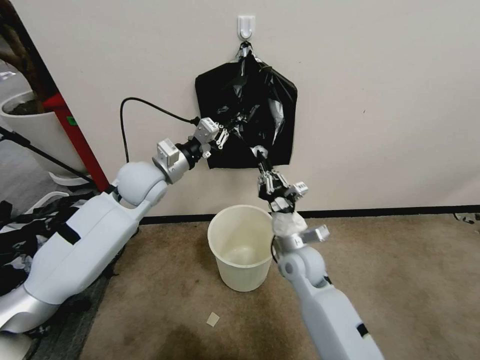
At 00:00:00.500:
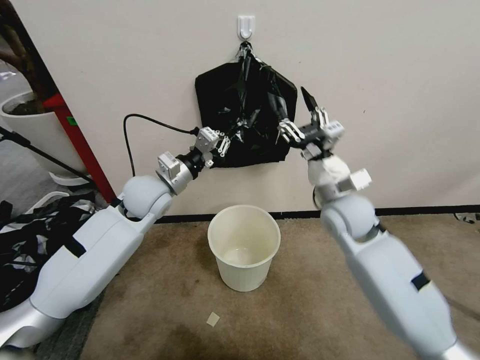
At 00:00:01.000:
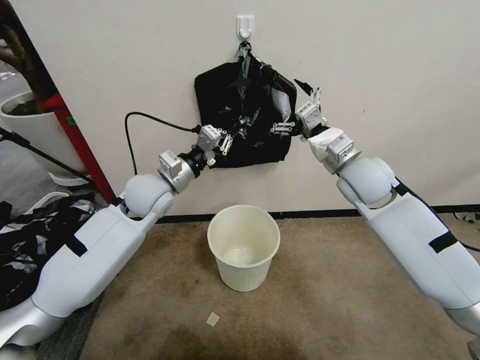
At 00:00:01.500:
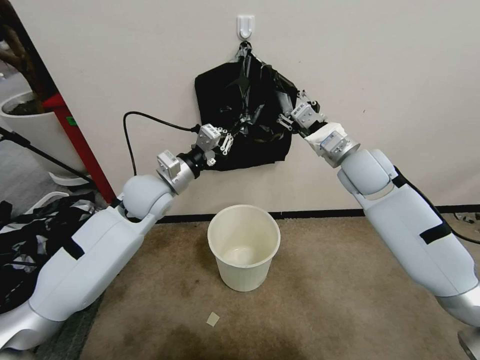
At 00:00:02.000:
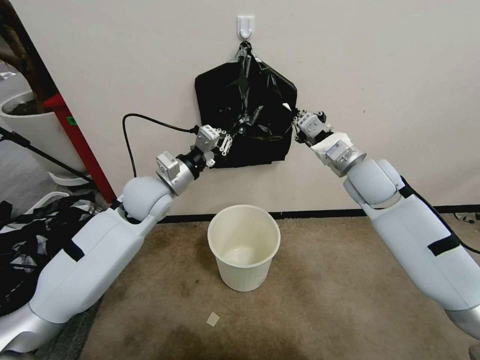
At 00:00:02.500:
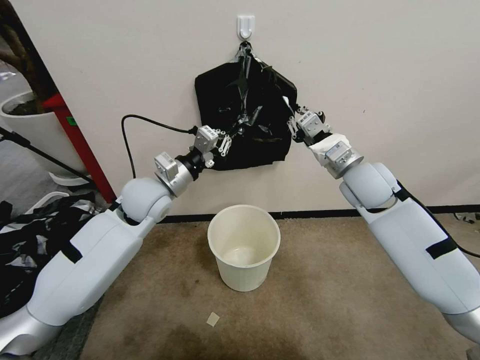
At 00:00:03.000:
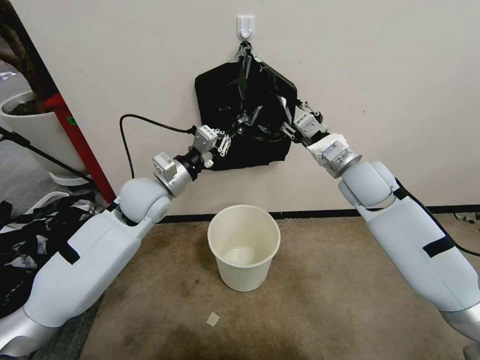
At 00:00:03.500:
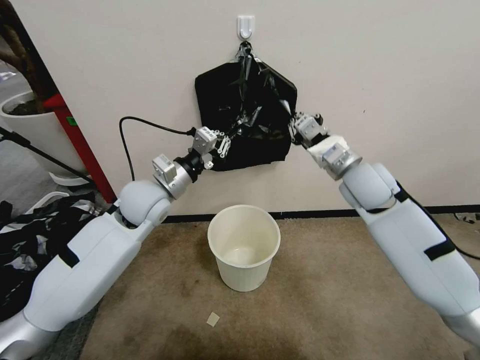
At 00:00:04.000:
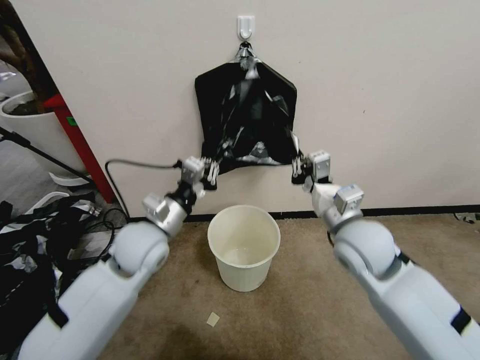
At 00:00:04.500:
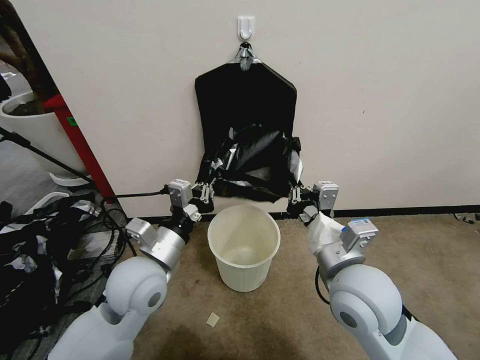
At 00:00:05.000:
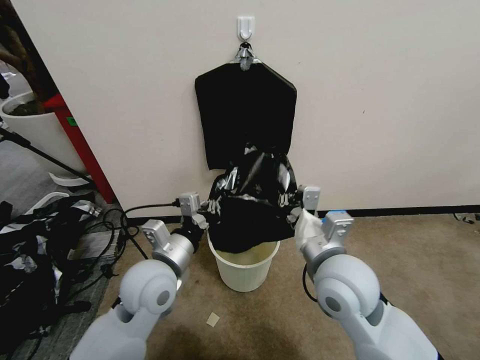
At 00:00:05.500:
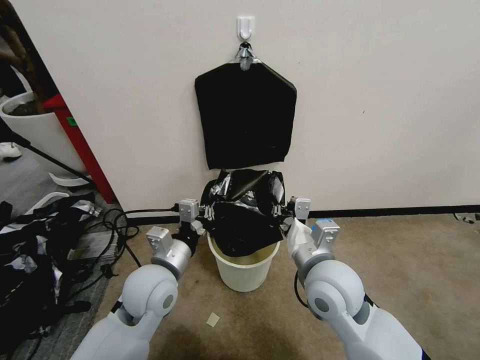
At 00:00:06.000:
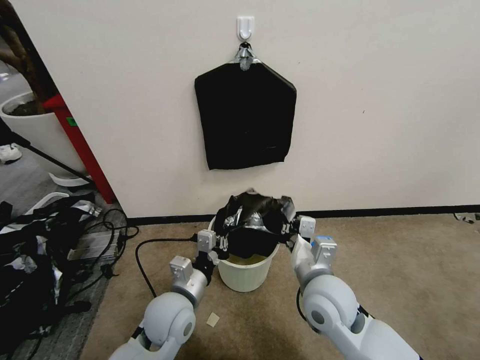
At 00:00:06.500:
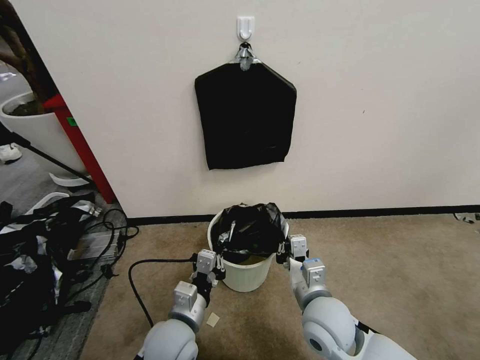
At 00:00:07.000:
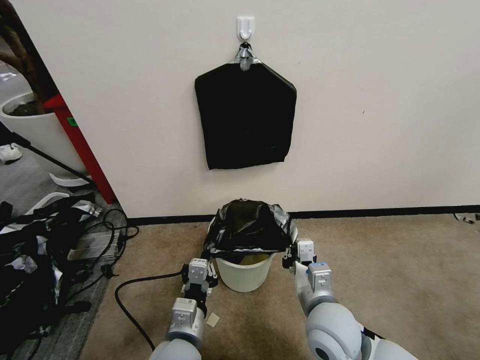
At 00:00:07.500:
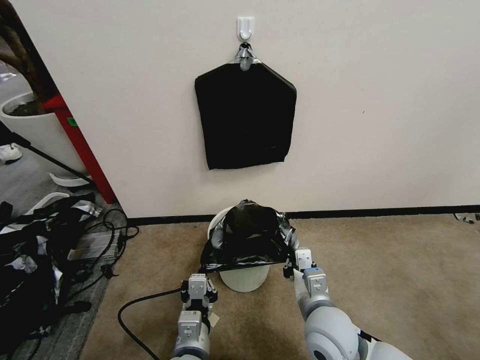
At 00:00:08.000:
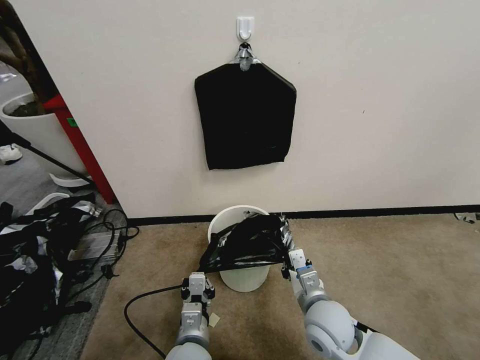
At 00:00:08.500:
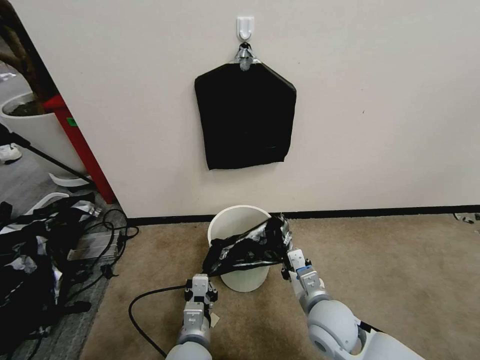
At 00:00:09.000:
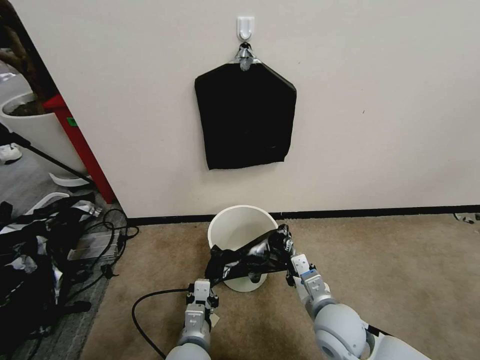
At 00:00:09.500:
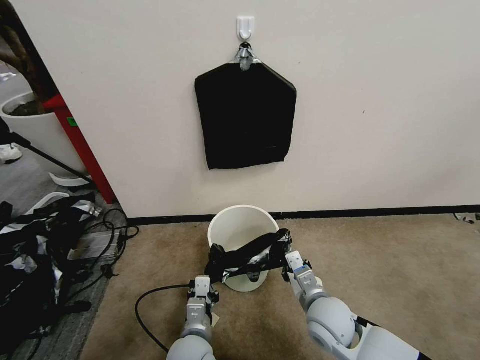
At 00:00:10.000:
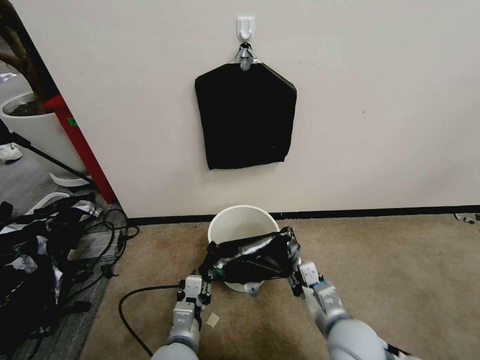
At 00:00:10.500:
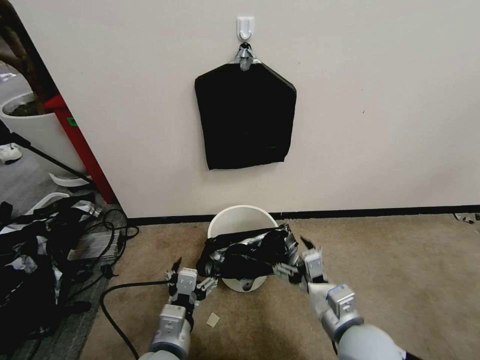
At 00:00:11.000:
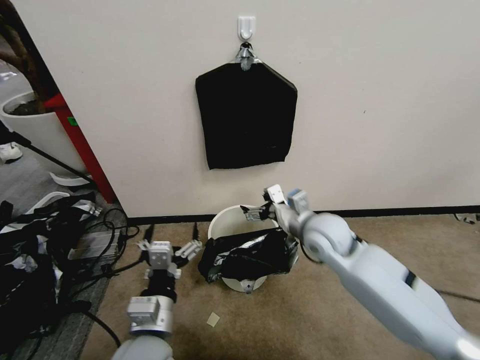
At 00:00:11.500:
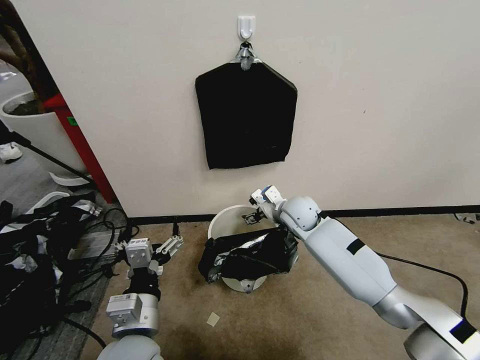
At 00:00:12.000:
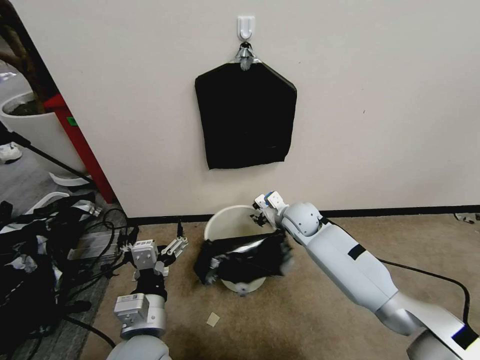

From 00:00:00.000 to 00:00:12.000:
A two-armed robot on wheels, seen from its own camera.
Task of the whole recording: Place a trash bag onto the trash bin.
From 00:00:00.000 to 00:00:02.000: The right gripper shifts about 25 cm upward, to the right and forward, and opens and closes again.
From 00:00:02.000 to 00:00:04.000: The left gripper heads backward and downward, covering approximately 10 cm. The right gripper shifts some 15 cm backward, and opens and closes again.
From 00:00:04.000 to 00:00:06.000: The right gripper goes some 10 cm downward, to the left and backward, while the left gripper shifts about 15 cm downward, backward and to the right.
From 00:00:06.000 to 00:00:08.000: The right gripper shifts roughly 10 cm downward. The left gripper shifts approximately 10 cm backward and downward.
From 00:00:08.000 to 00:00:10.000: The right gripper ends up some 5 cm from where it was, and opens up.
From 00:00:10.000 to 00:00:12.000: The left gripper travels upward by about 10 cm, and opens up. Meanwhile the right gripper goes about 30 cm forward, and opens, then closes again.

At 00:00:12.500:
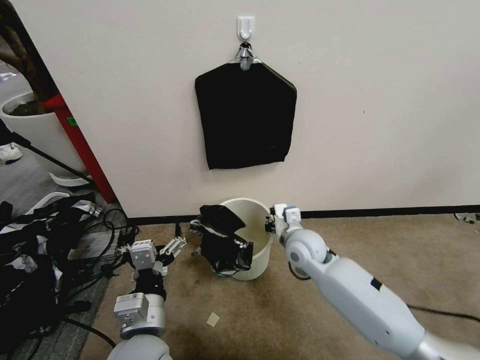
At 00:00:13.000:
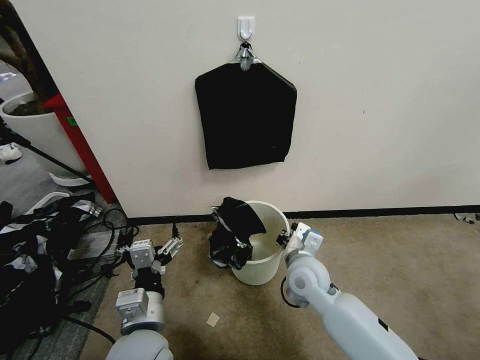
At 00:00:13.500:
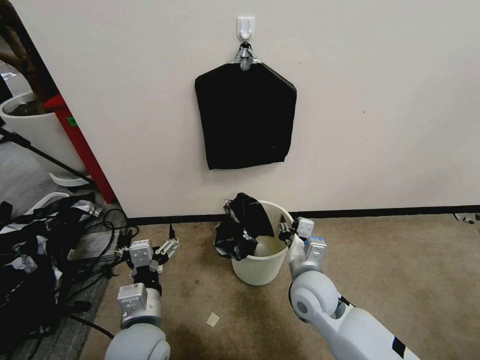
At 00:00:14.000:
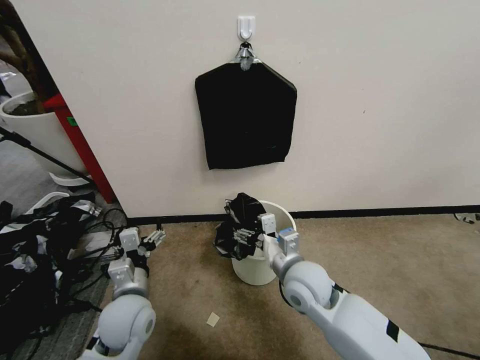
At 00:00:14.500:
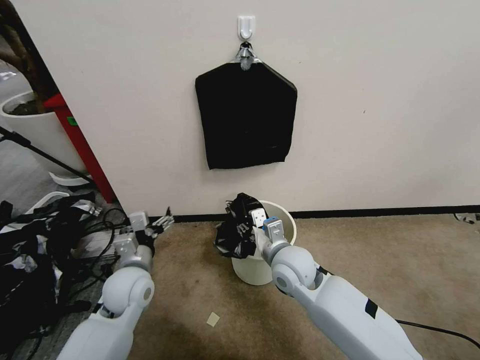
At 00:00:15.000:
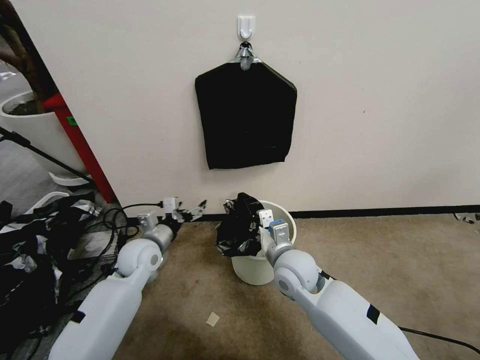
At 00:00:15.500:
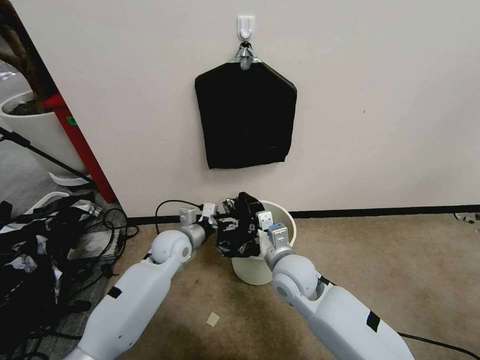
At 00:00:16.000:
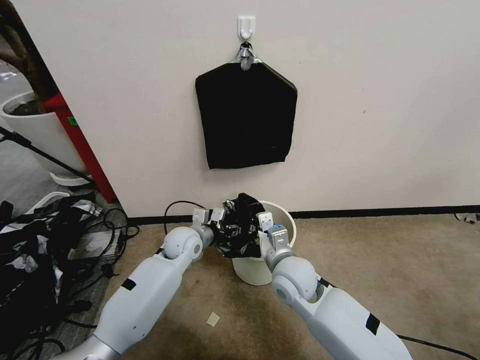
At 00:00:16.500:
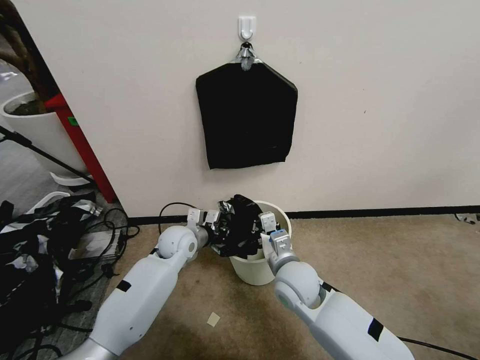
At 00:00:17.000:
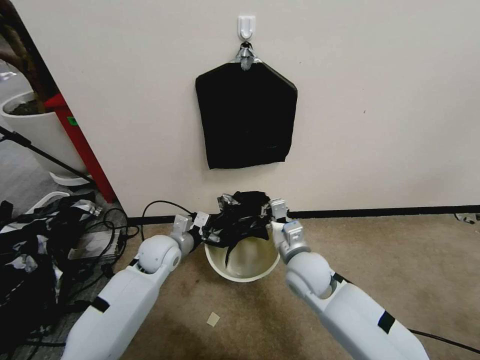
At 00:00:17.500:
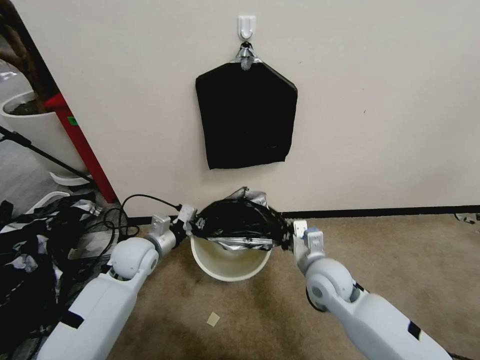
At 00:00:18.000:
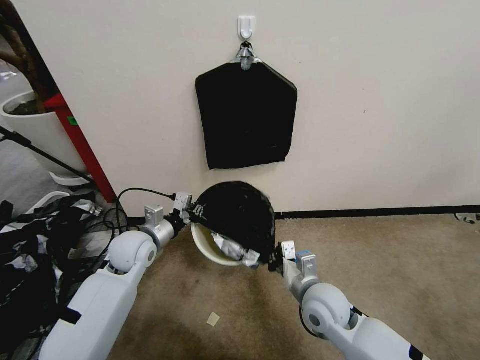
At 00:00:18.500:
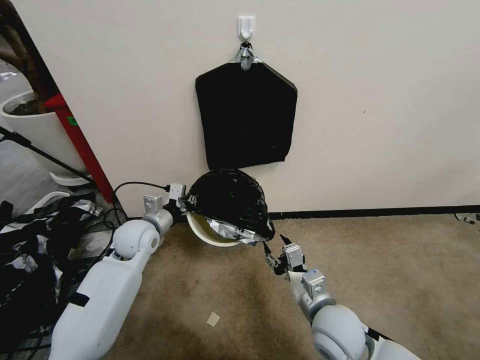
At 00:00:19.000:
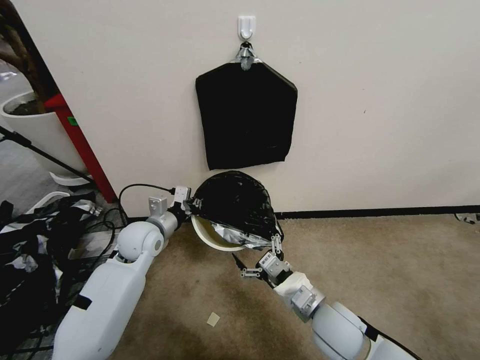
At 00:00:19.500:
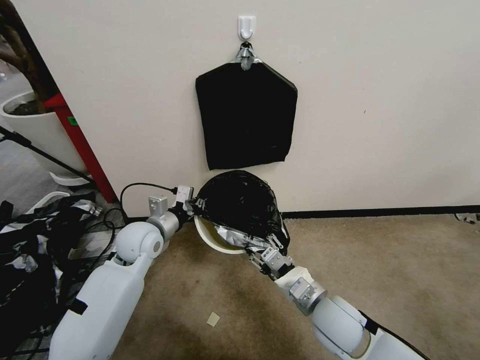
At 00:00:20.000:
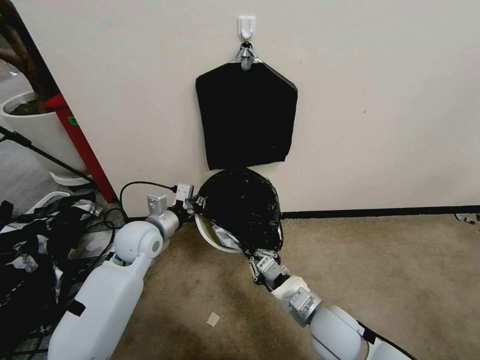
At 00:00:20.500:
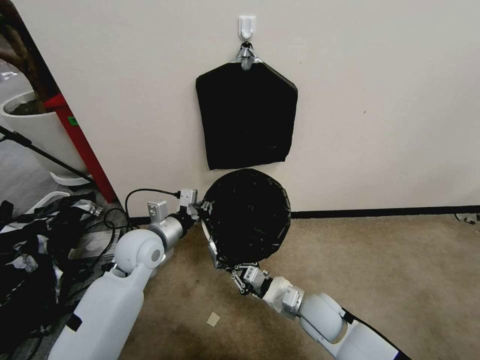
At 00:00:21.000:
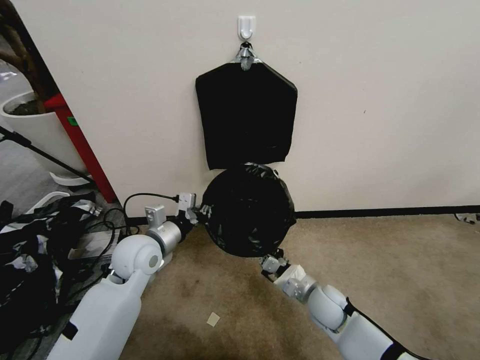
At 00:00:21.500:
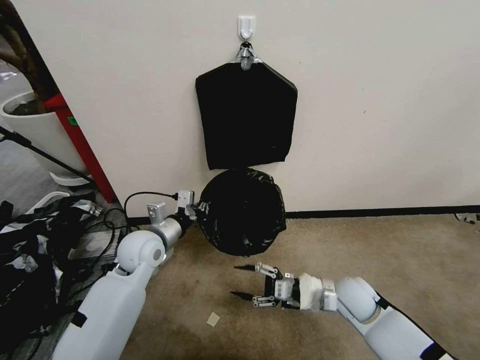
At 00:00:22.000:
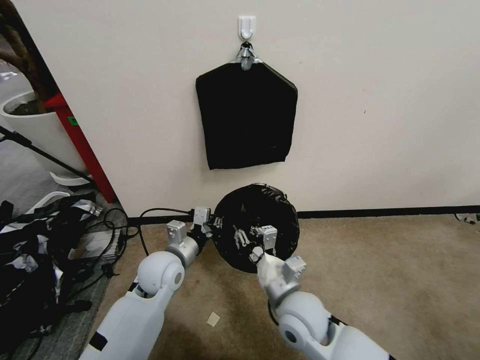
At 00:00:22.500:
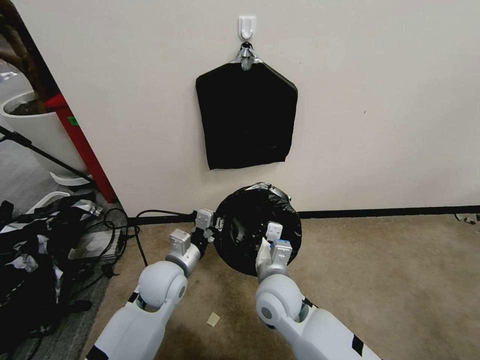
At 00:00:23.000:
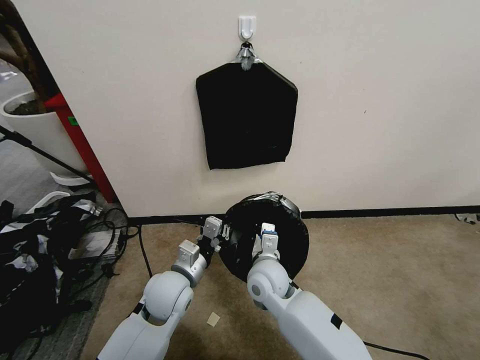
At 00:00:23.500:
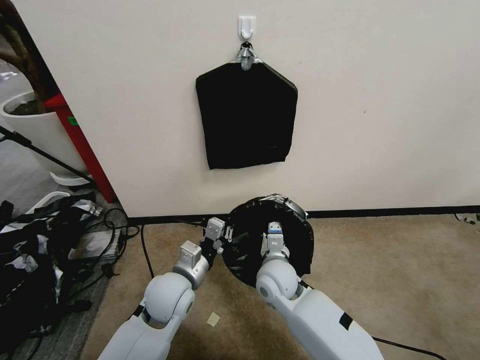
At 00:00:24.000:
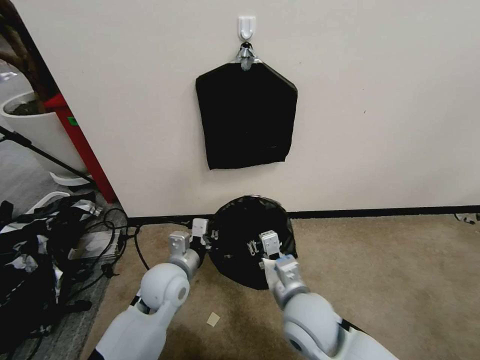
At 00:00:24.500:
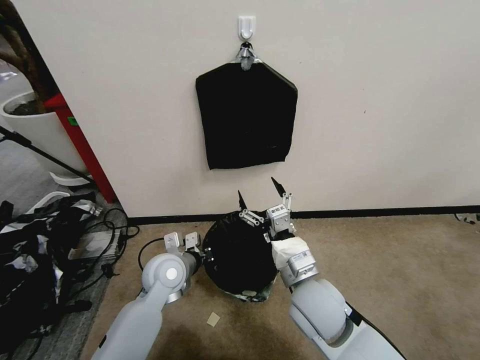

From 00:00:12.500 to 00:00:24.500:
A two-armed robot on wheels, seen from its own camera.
Task of the whole recording: Place a trash bag onto the trash bin.
From 00:00:12.500 to 00:00:14.500: The left gripper moves forward and to the left, roughly 15 cm; the right gripper goes roughly 5 cm backward, and opens, then closes again.
From 00:00:14.500 to 00:00:16.500: The right gripper closes its fingers. The left gripper travels forward and to the right by some 15 cm, and closes up.
From 00:00:16.500 to 00:00:18.500: The right gripper moves backward and to the right, roughly 10 cm, and opens up. Meanwhile the left gripper is displaced to the left and upward by some 10 cm.
From 00:00:18.500 to 00:00:20.500: The left gripper moves some 5 cm. The right gripper moves downward, some 5 cm, and closes.
From 00:00:20.500 to 00:00:22.500: The right gripper heads to the left and upward, covering some 15 cm, and opens and closes again, while the left gripper is displaced downward and to the right by approximately 10 cm.
From 00:00:22.500 to 00:00:24.500: The right gripper is displaced to the right and upward by about 10 cm, travels backward and back again, approximately 5 cm each way, and opens up.

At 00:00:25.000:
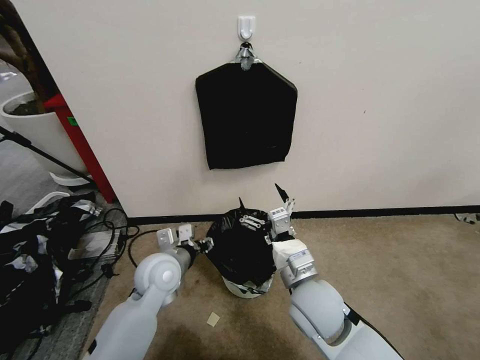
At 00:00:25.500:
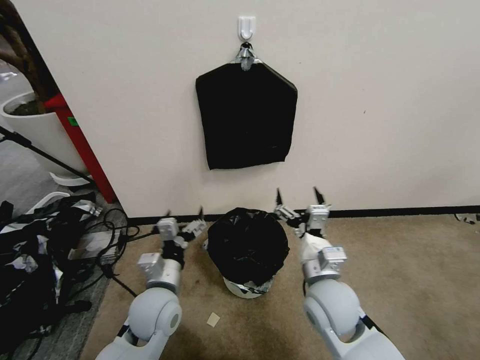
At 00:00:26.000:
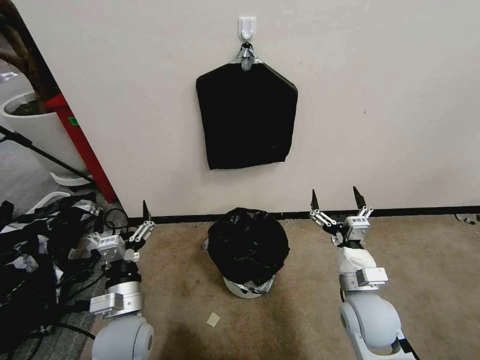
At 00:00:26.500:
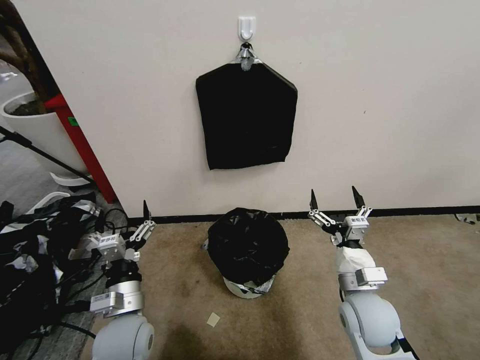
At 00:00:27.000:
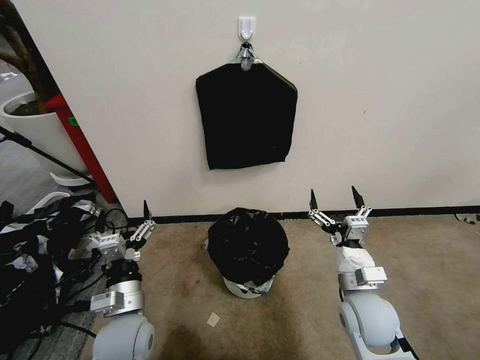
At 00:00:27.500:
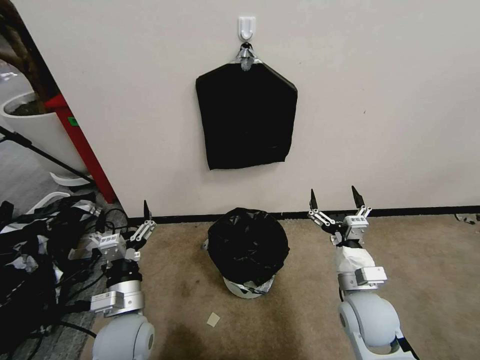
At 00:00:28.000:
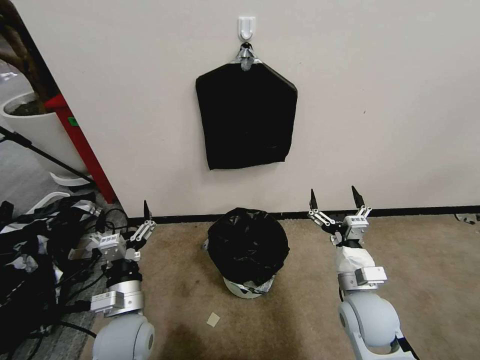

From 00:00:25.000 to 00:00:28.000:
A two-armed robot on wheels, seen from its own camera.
Task of the whole recording: Place a trash bag onto the trash bin.
From 00:00:25.000 to 00:00:26.500: The left gripper shifts roughly 10 cm backward, and opens its fingers; the right gripper shifts roughly 10 cm to the right.
From 00:00:26.500 to 00:00:28.000: Both grippers stay about where they are.
